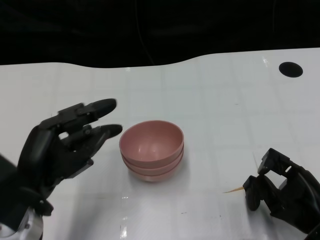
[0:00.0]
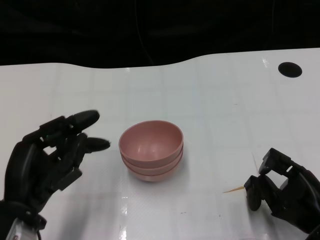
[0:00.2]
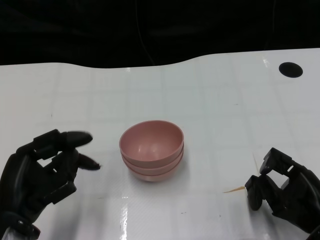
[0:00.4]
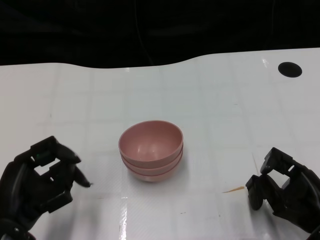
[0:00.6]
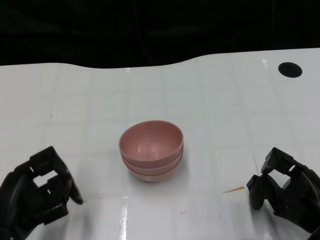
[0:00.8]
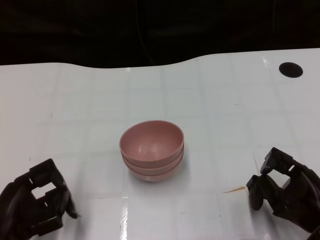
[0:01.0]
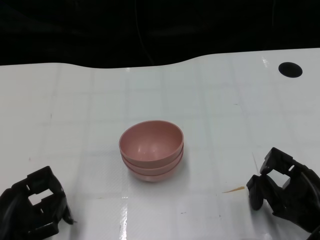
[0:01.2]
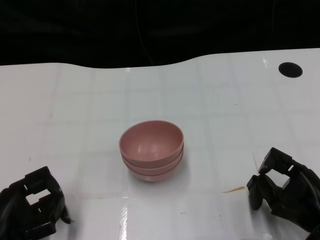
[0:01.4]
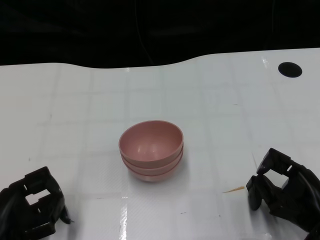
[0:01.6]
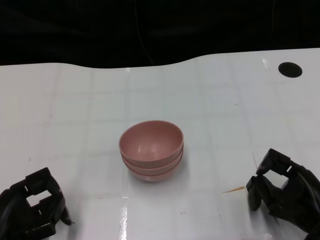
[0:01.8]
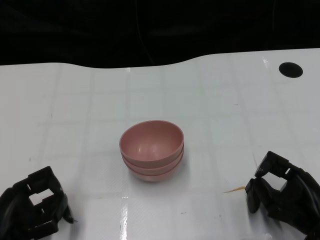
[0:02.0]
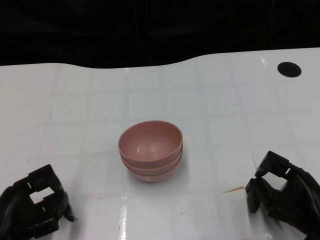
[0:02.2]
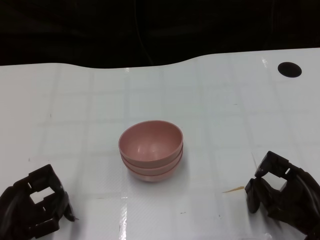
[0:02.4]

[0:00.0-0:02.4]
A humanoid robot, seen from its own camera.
Task of the whole recording: Pick up the bowl on one side of the table and place it on top of the middle bowl, then pick up the bowl on the other side of the table and place it on top of the middle bowls.
0:00.0 to 0:01.2: The left hand travels downward and to the left by some 10 cm.
0:01.2 to 0:02.4: Both hands stay about where they are.

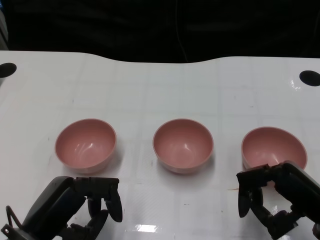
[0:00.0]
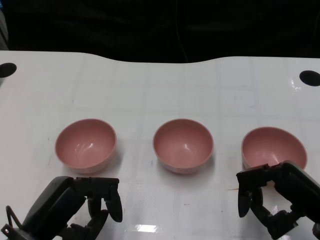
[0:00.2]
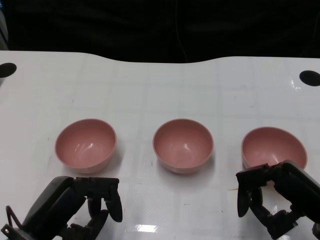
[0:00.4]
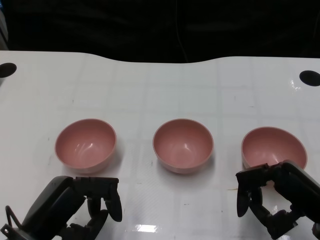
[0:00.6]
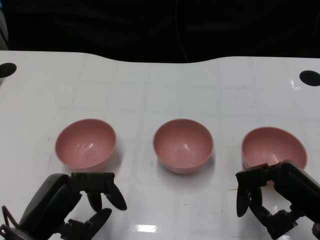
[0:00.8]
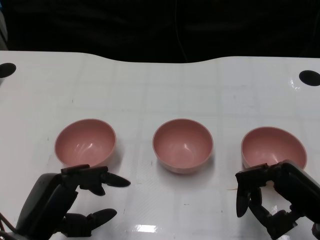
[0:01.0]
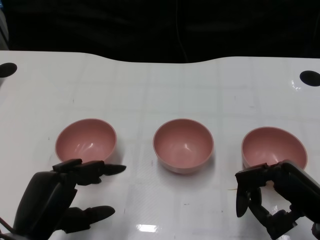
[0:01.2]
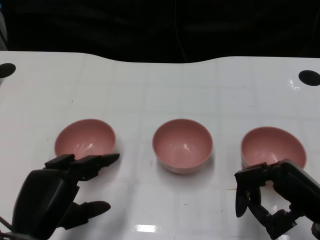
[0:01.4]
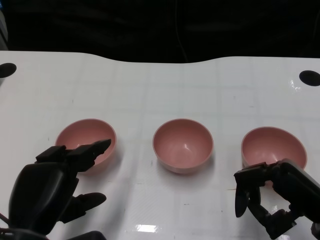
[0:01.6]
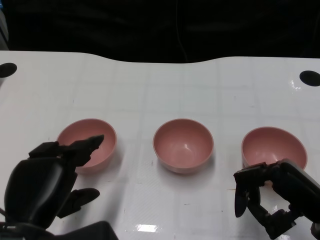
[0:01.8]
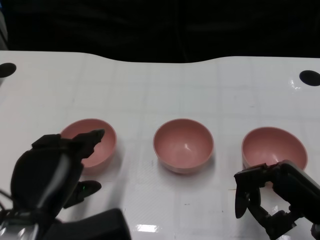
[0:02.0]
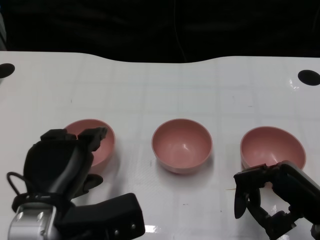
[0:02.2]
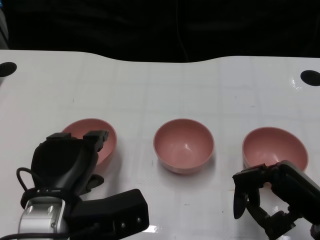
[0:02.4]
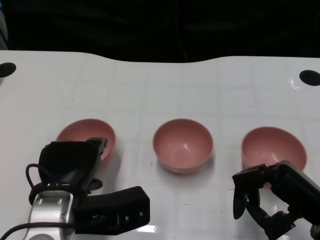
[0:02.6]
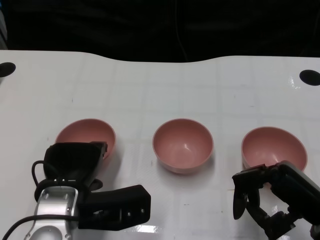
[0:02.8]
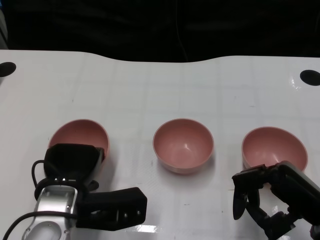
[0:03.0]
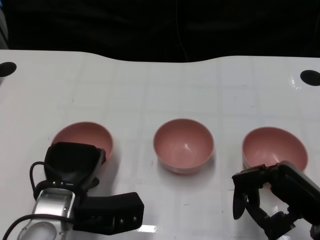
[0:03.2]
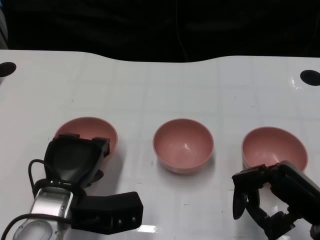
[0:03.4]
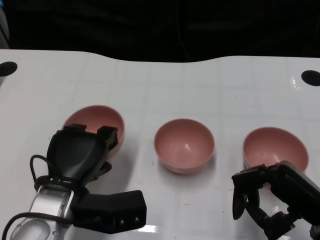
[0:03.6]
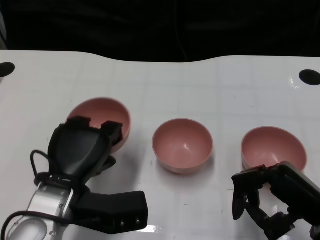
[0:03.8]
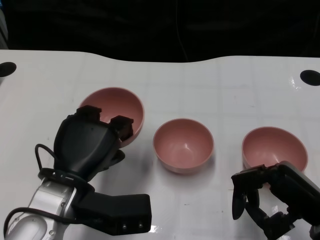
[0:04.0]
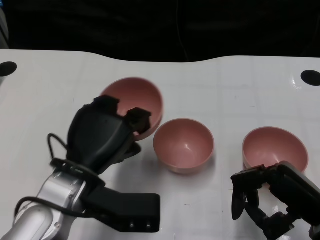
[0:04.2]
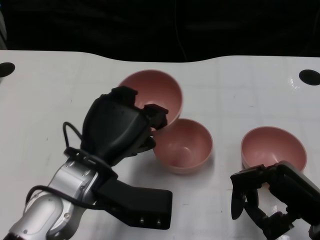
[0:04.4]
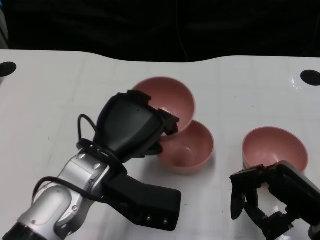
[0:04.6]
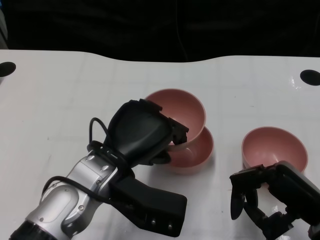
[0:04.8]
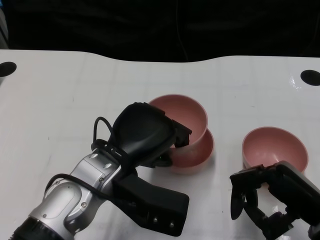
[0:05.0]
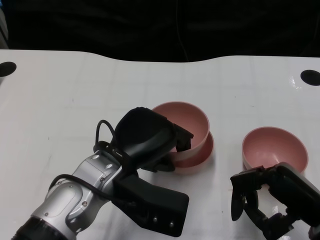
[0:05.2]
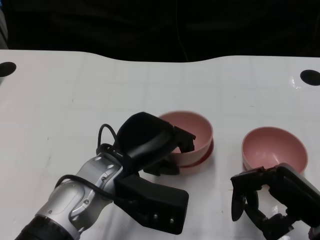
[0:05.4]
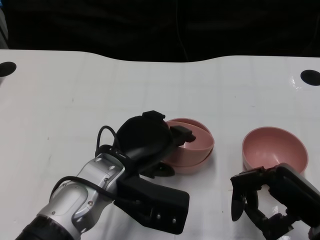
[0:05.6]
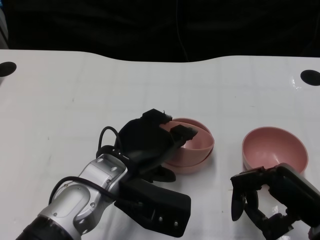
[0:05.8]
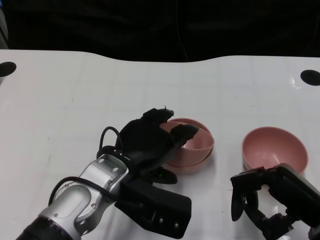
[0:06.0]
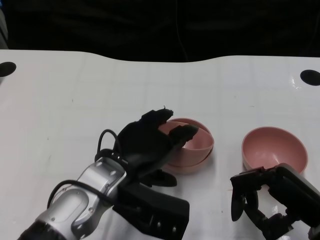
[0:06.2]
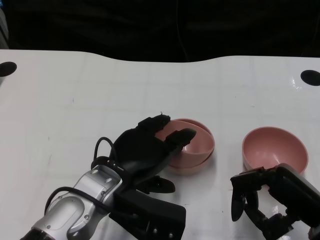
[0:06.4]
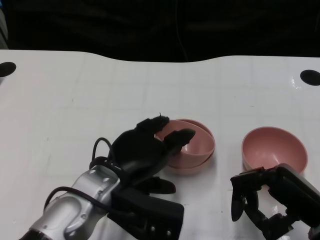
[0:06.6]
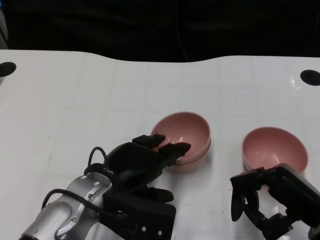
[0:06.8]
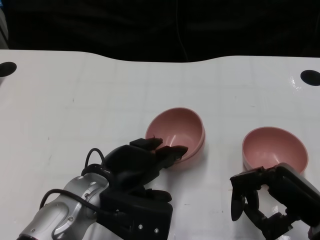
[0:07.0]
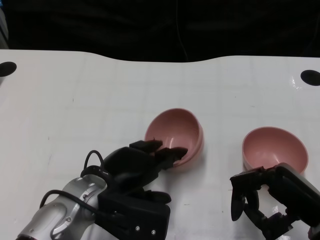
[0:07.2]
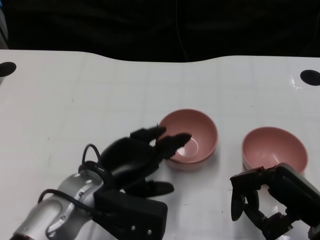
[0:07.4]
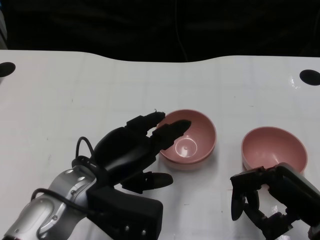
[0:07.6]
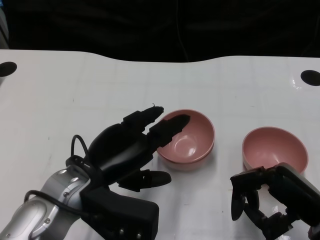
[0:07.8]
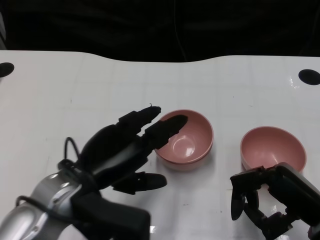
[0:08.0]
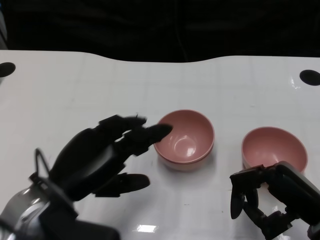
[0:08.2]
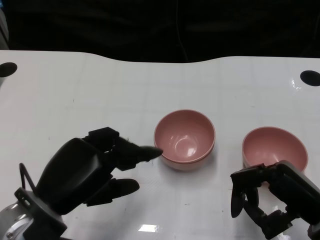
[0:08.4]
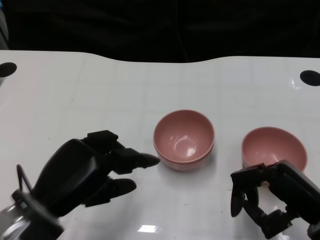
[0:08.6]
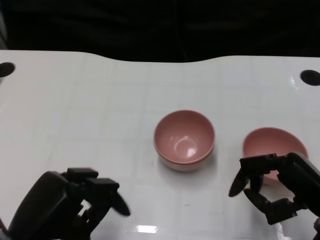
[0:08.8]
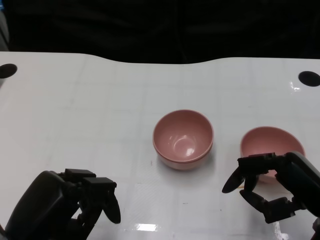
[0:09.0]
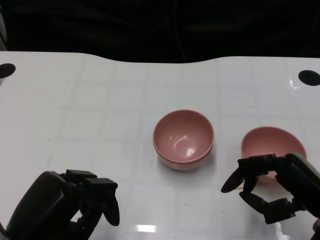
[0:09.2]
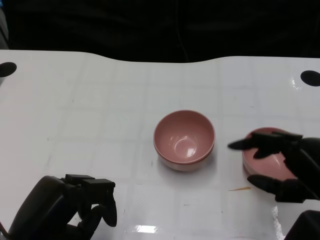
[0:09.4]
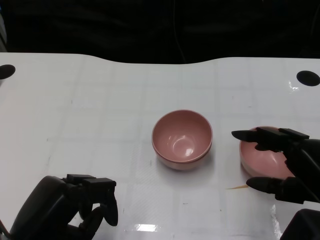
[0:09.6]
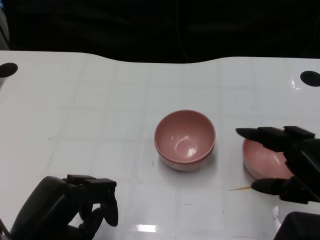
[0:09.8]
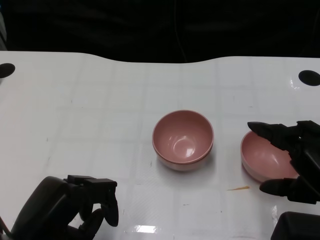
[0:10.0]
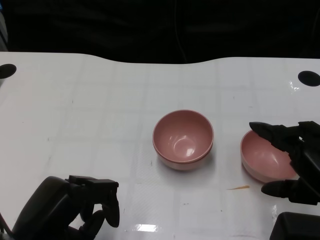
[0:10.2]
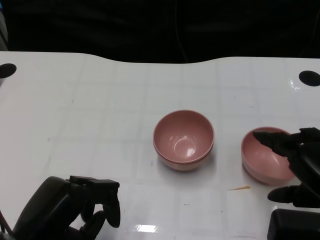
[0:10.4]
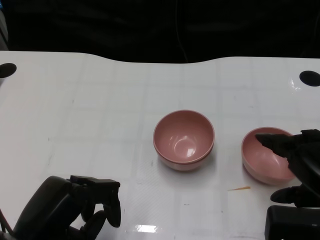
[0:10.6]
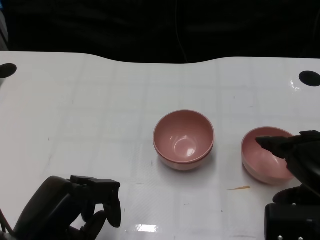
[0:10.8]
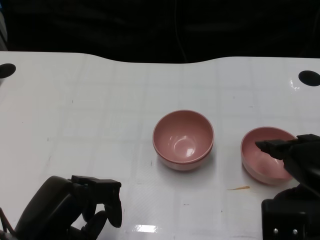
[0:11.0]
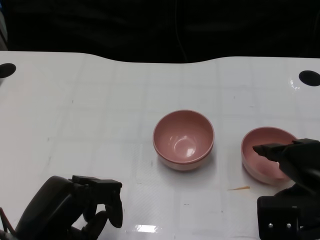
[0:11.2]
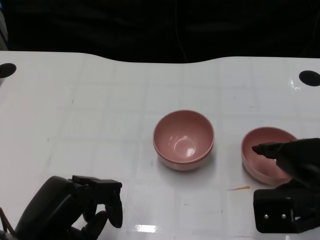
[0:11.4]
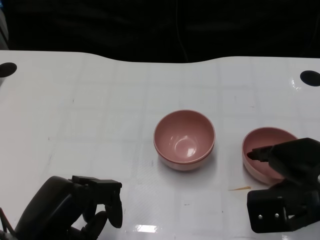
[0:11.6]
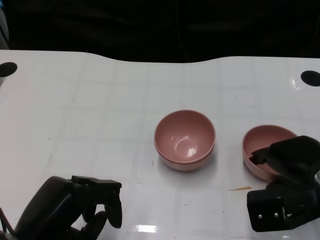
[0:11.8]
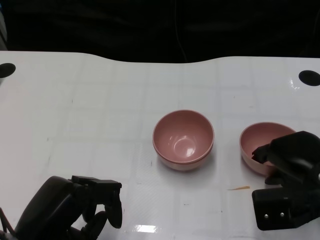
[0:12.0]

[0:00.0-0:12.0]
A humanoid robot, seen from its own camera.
Task of the whole recording: Pick up the bowl on one side of the table and place it on top of the middle bowl, then pick up the bowl on the other side of the table and place it on top of the middle bowls.
Step, 0:00.8 to 0:03.4: Grasp the bowl on the left with the left gripper.
Step, 0:03.8 to 0:07.2: Place the bowl on the left onto the bowl in the middle with left gripper.
0:01.6 to 0:03.0: The left hand goes approximately 10 cm forward.
0:03.0 to 0:04.4: The left hand travels upward by about 5 cm.
0:06.0 to 0:07.6: There are only small adjustments of the hands.
0:07.6 to 0:09.0: The left hand is displaced to the left and backward by roughly 15 cm.
0:09.0 to 0:10.4: The right hand is displaced upward by approximately 5 cm.
0:10.4 to 0:12.0: The right hand shifts approximately 10 cm forward and downward.

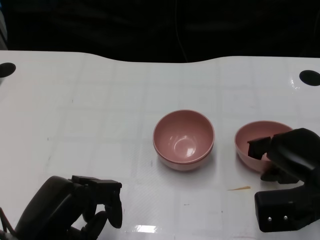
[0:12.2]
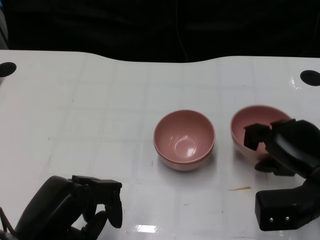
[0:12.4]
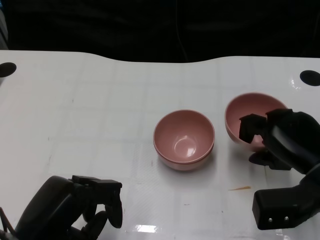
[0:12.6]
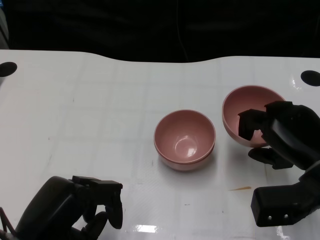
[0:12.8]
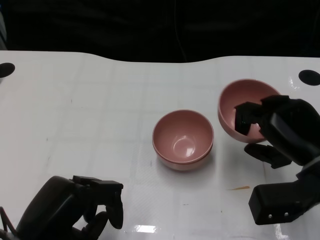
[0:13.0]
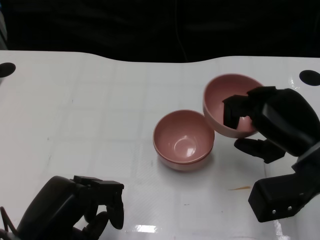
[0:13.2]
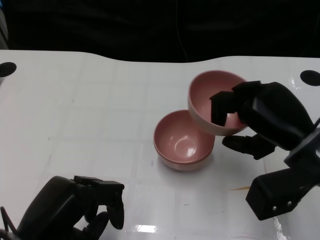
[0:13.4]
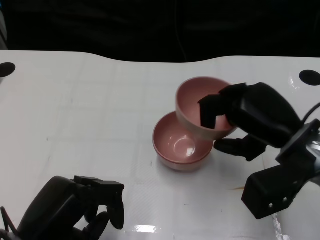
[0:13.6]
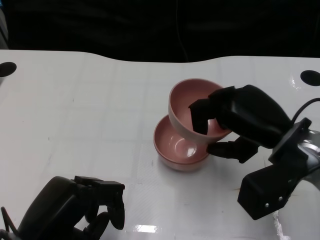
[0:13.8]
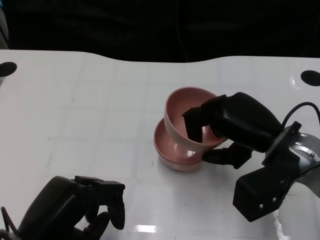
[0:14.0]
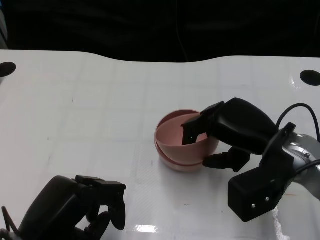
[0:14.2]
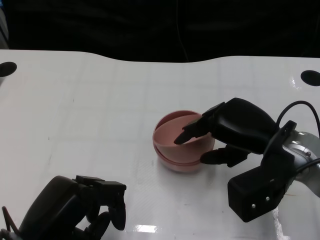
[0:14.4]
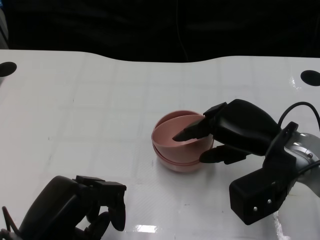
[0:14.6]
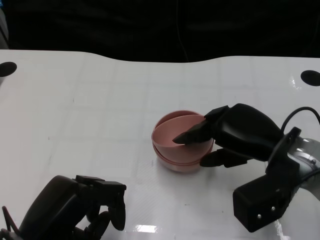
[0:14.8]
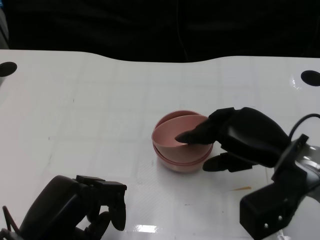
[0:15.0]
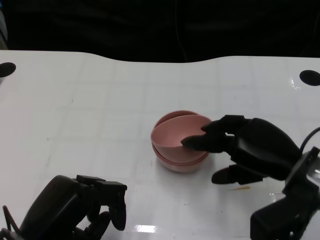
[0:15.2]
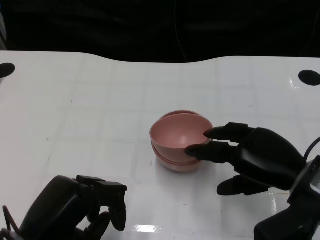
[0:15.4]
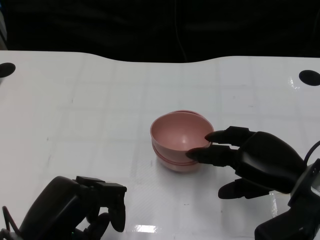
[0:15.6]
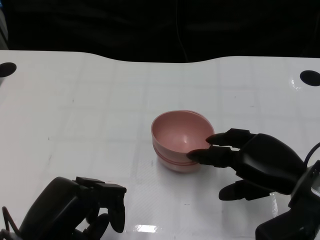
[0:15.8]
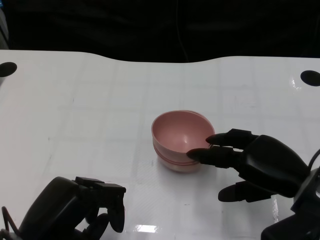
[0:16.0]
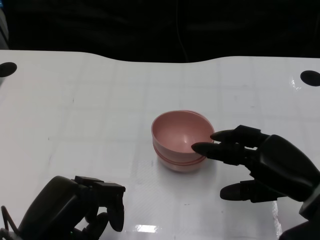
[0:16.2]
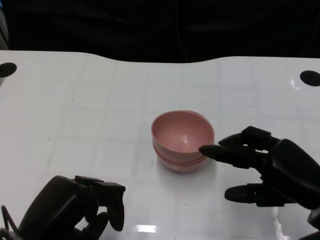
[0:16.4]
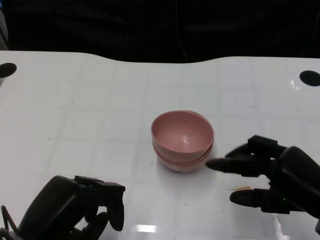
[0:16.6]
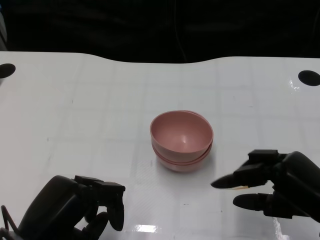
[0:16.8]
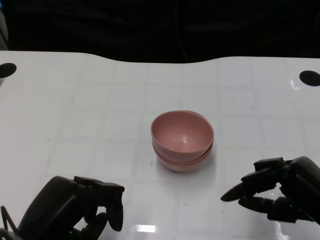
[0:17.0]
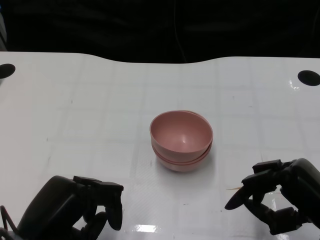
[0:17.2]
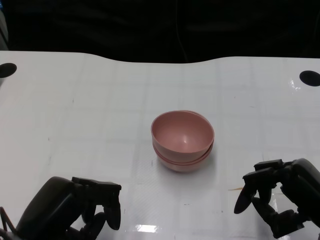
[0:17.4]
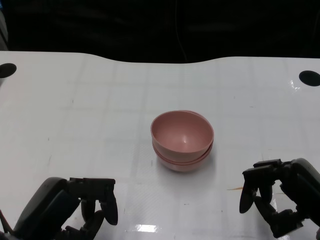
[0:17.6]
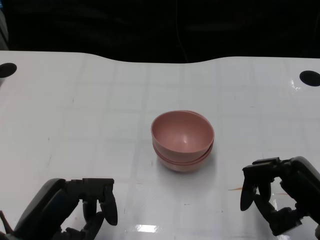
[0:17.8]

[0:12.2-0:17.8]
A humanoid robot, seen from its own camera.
Task of the whole recording: Pick up the bowl on one side of the table and place it on top of the middle bowl, then pick up the bowl on the other side of the table and place it on top of the middle bowls.
Step, 0:12.6 to 0:16.2: Place the bowl on the right onto the bowl in the middle with right gripper.
0:12.2 to 0:13.6: The right hand heads upward, covering about 5 cm.
0:13.6 to 0:15.0: The hands move only a little.
0:15.0 to 0:16.4: The right hand goes about 5 cm backward.
0:16.4 to 0:17.8: The hands make only small movements.

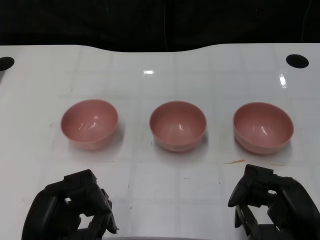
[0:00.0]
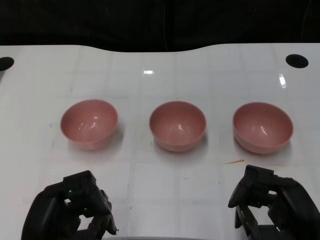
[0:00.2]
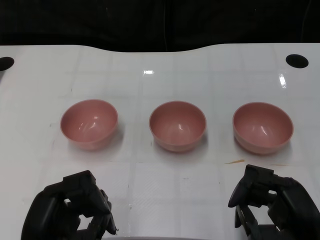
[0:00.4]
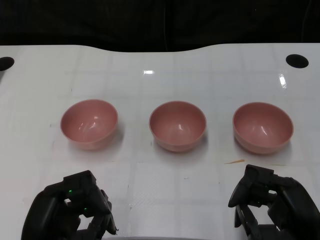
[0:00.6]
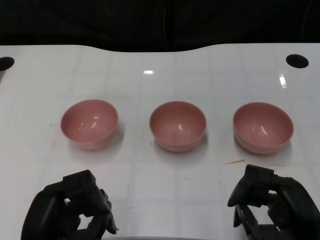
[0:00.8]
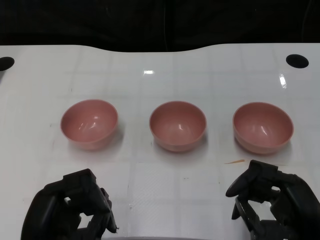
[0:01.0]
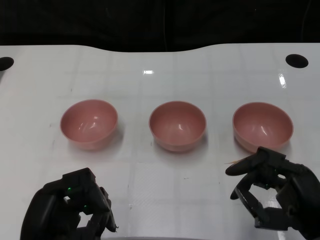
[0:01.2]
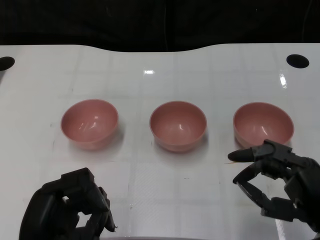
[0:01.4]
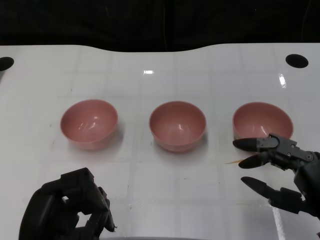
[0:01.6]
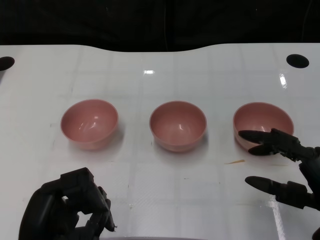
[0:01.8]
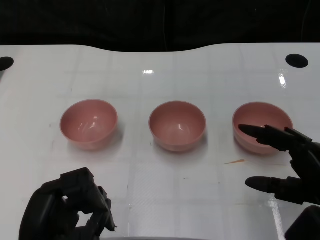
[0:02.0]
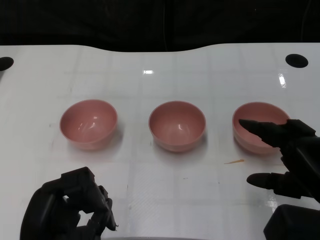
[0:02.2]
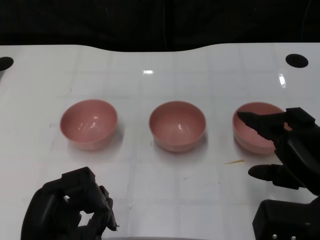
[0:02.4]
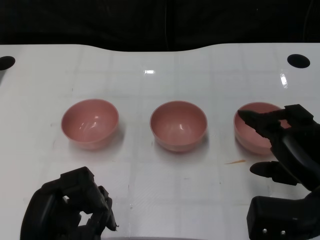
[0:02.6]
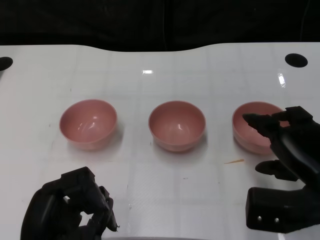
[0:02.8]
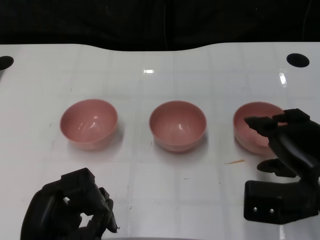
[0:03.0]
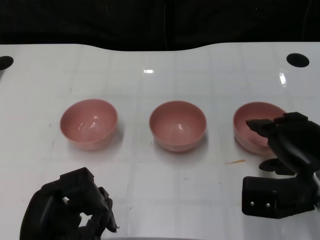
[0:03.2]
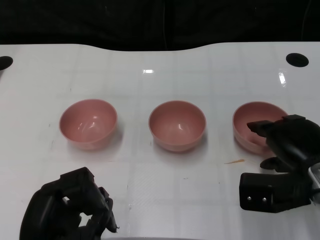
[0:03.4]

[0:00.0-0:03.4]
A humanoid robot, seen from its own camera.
Task of the whole recording: Pick up the bowl on one side of the table and place it on top of the middle bowl, then pick up the bowl on the other side of the table and place it on top of the middle bowls.
0:01.6 to 0:03.4: The right hand shifts roughly 10 cm forward.
